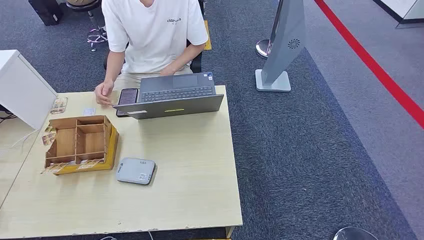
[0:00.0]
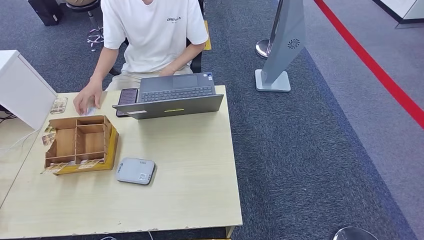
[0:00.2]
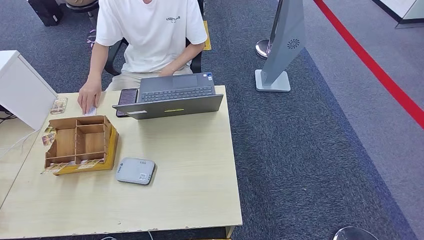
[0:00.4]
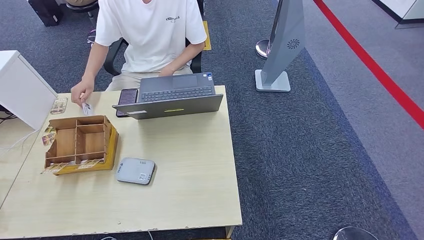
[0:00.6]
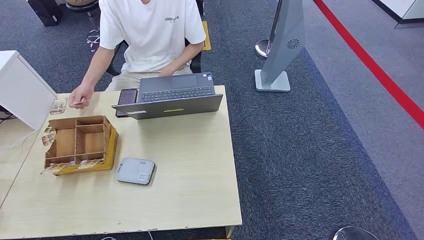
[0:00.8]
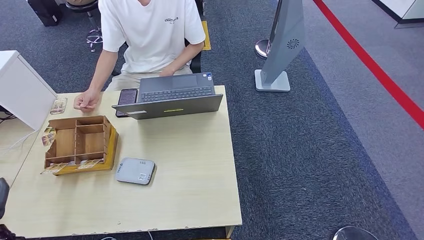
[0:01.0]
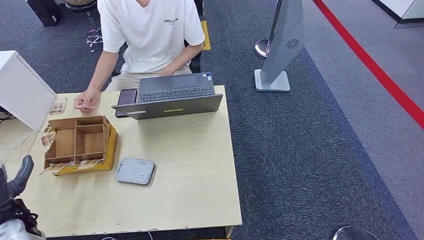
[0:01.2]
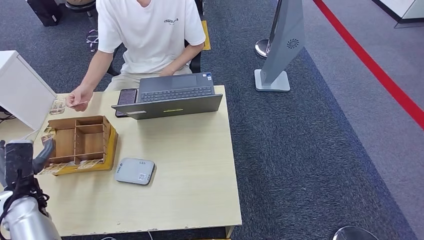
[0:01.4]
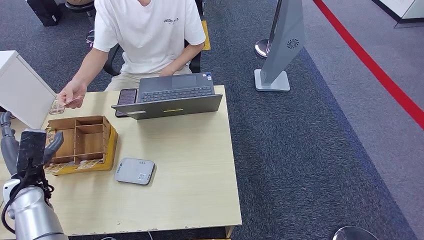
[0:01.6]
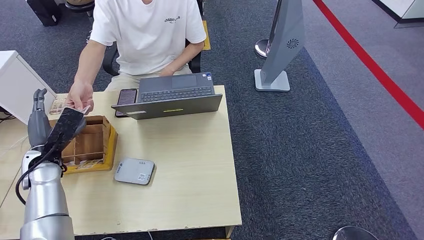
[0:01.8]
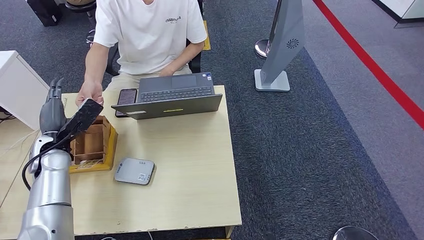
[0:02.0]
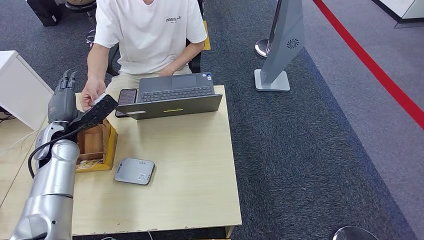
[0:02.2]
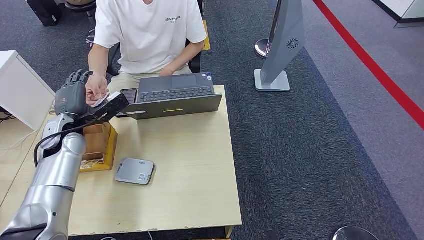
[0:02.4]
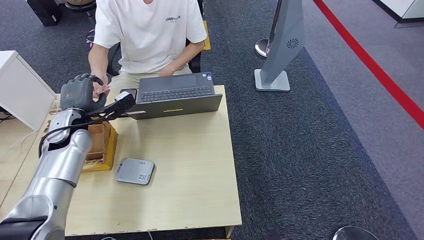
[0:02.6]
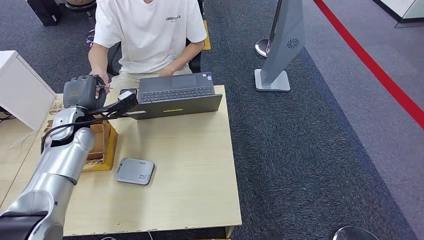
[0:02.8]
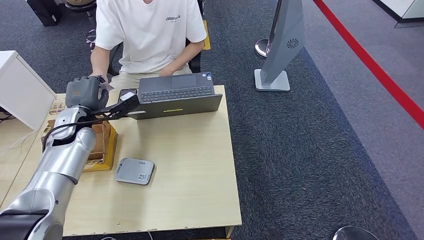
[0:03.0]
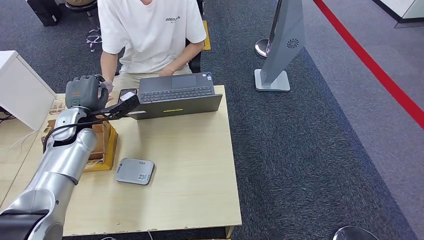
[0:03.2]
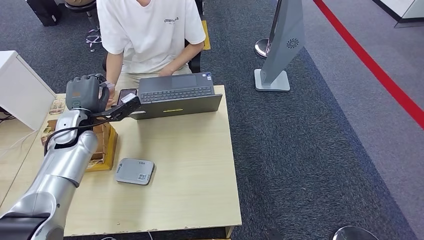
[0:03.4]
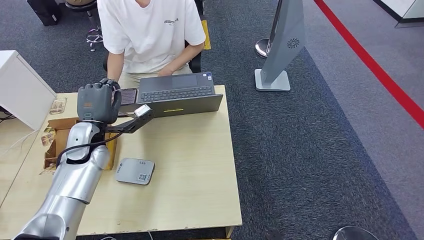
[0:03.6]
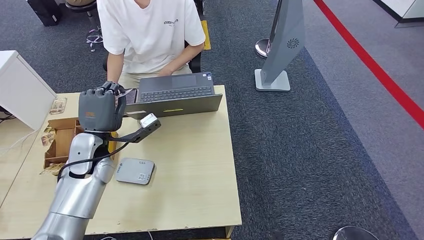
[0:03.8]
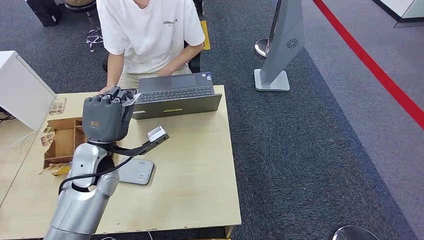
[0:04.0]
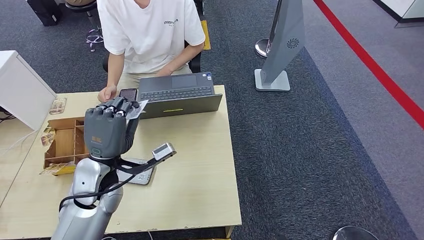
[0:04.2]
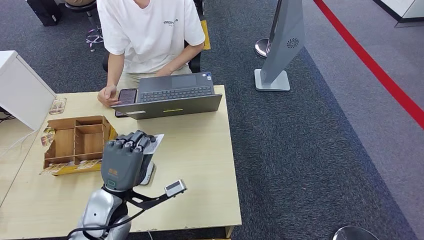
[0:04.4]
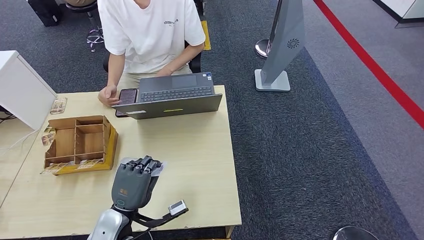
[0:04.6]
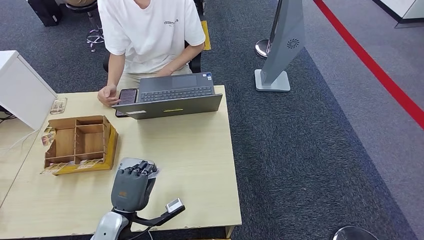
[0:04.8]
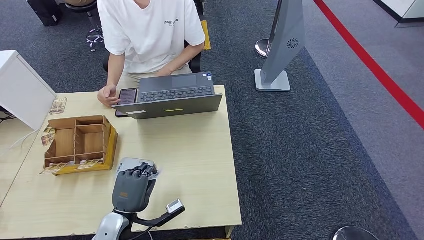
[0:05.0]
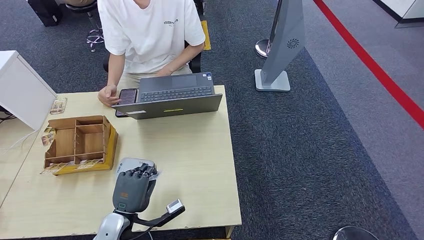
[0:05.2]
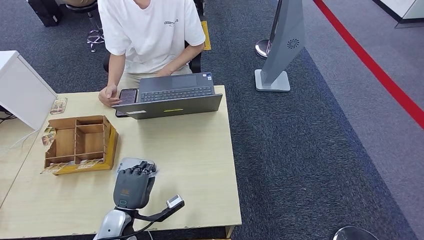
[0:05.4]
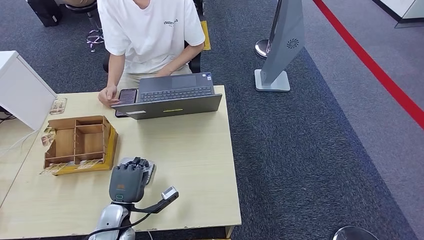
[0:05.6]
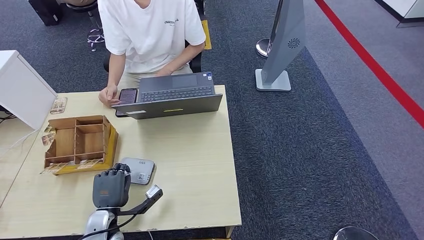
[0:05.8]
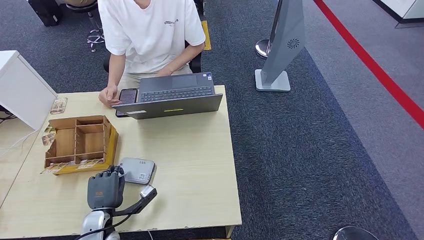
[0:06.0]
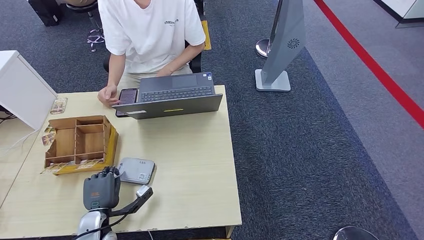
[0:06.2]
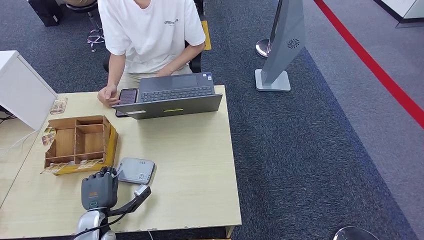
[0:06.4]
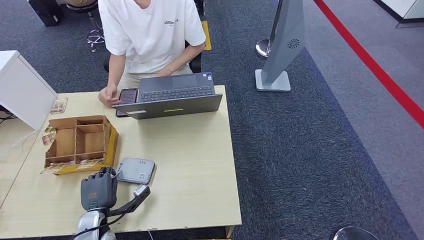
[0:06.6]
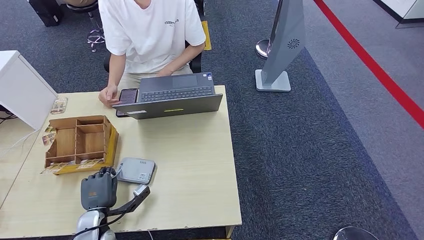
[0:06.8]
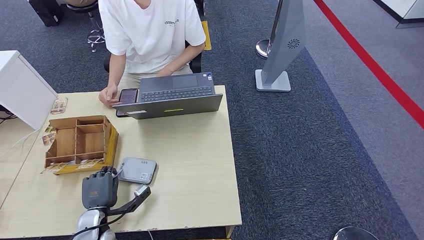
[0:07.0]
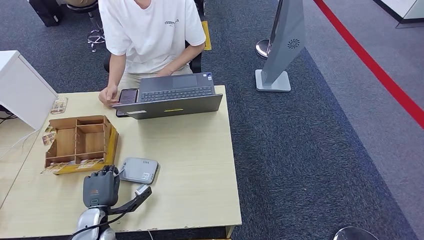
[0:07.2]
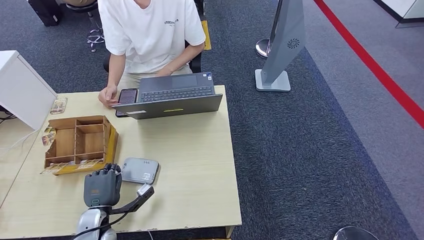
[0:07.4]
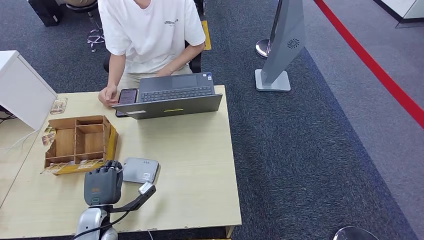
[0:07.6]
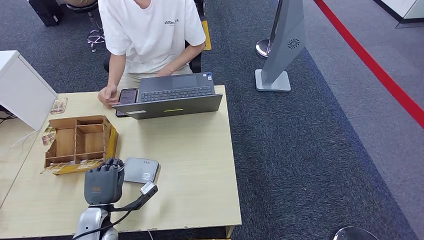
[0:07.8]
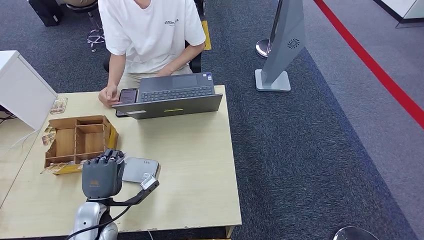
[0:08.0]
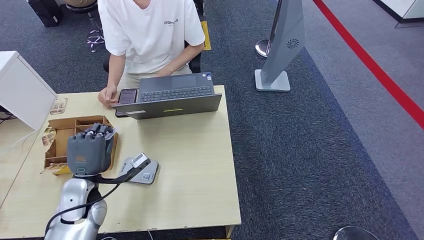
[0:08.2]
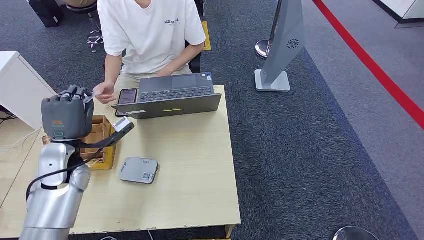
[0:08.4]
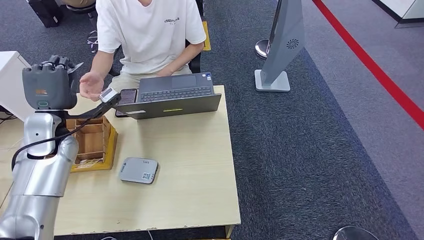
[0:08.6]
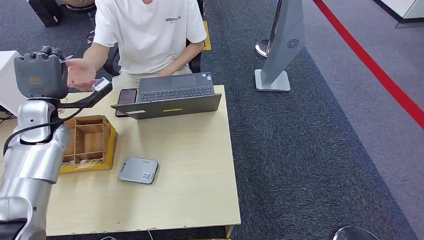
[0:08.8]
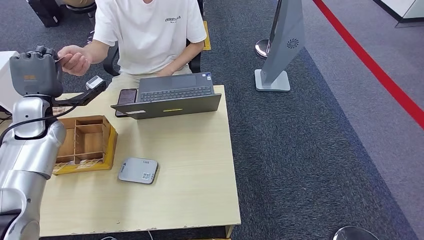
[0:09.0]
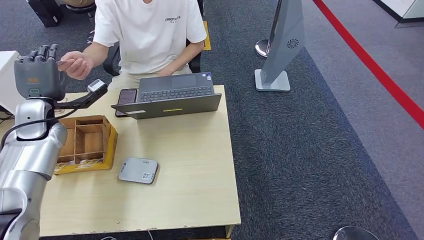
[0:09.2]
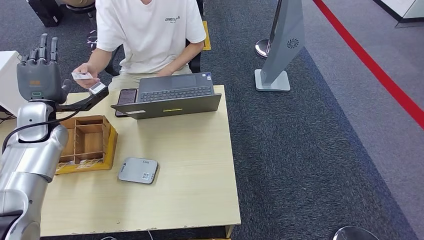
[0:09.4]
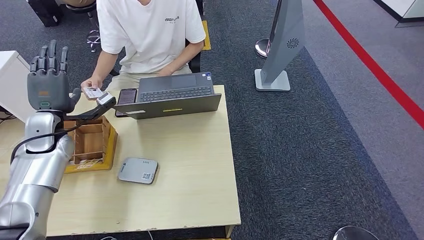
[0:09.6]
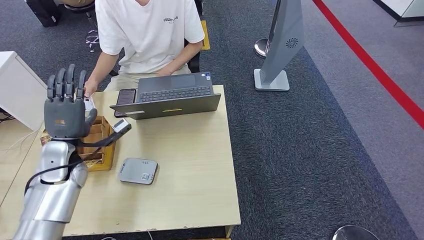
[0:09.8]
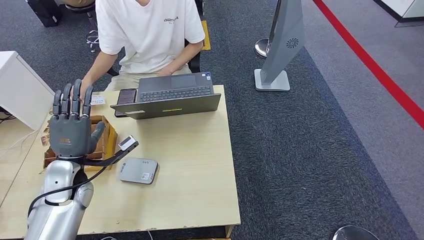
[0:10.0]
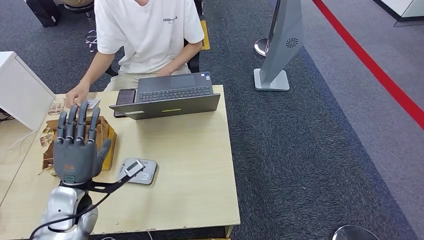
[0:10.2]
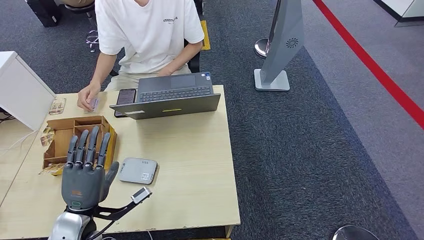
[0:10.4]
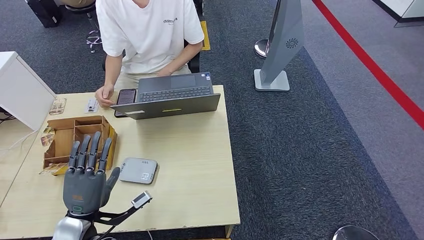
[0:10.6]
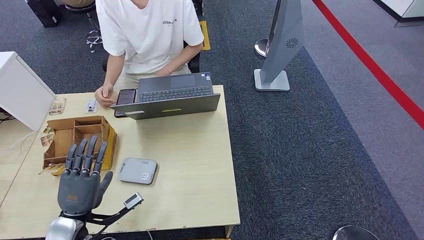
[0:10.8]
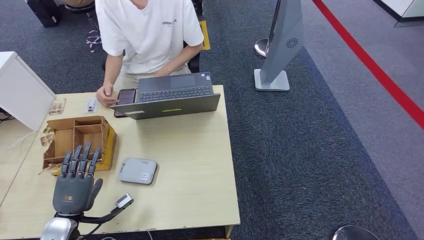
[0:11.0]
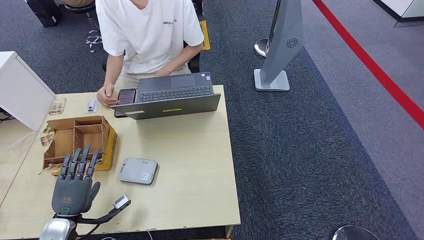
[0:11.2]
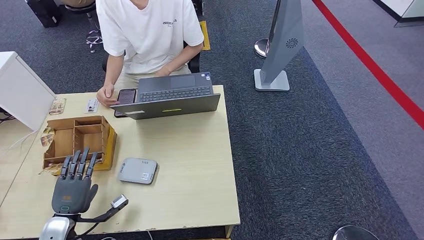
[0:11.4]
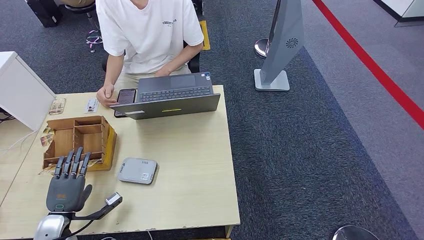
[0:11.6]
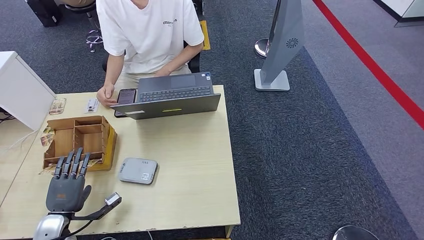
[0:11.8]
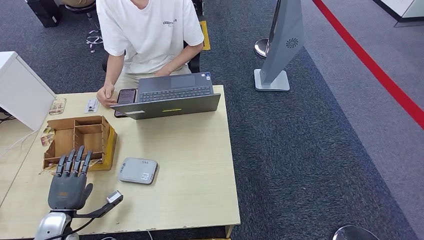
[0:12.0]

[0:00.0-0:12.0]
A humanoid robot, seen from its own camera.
Step, 0:00.0 to 0:03.6: Take the ID card from the person's hand.
Step, 0:03.8 to 0:05.6: Place the ID card on the card reader.
Step, 0:06.0 to 0:09.6: Hand the ID card to the person.
0:01.6 to 0:03.0: The left hand is displaced forward, to the right and upward by approximately 15 cm.
0:03.0 to 0:04.4: The left hand travels backward and to the right by approximately 20 cm.
0:04.4 to 0:06.0: The left hand shifts some 15 cm downward and to the left.
0:06.0 to 0:07.6: The hands stay close to where they were, moving slightly.
0:07.6 to 0:09.0: The left hand travels upward, forward and to the left by about 30 cm.
0:09.0 to 0:10.4: The left hand goes roughly 25 cm backward, downward and to the right.
0:10.4 to 0:12.0: The left hand travels to the left and downward by about 15 cm.

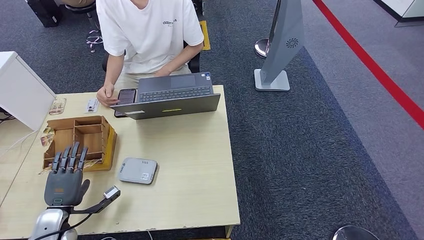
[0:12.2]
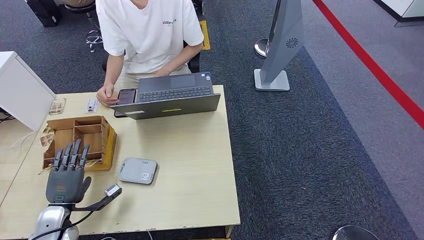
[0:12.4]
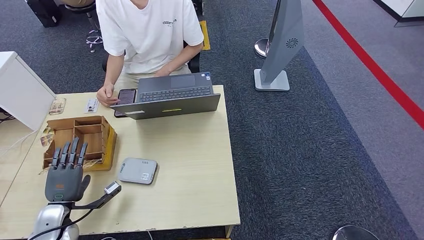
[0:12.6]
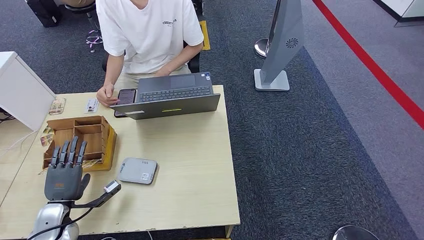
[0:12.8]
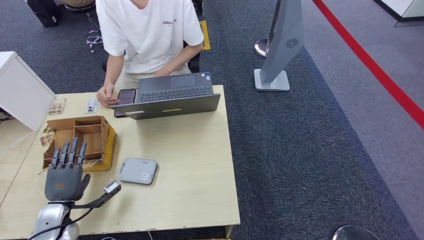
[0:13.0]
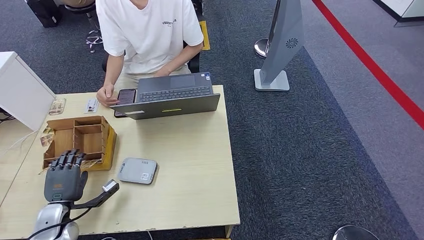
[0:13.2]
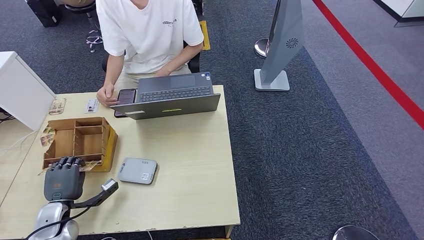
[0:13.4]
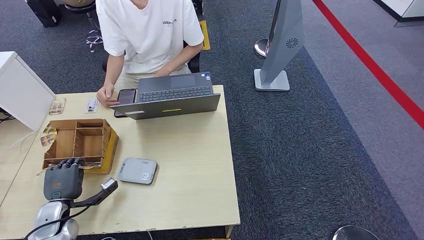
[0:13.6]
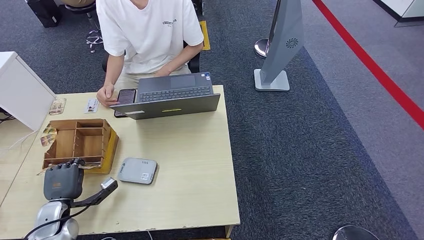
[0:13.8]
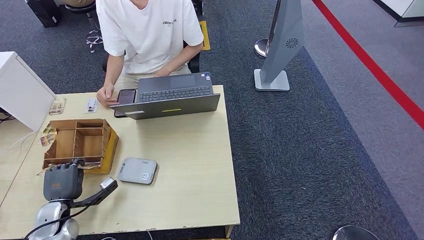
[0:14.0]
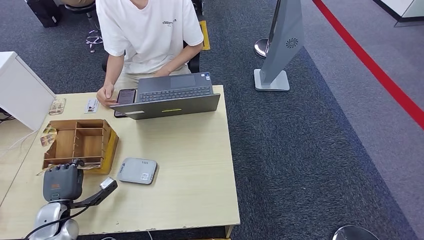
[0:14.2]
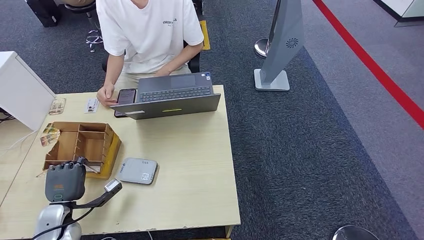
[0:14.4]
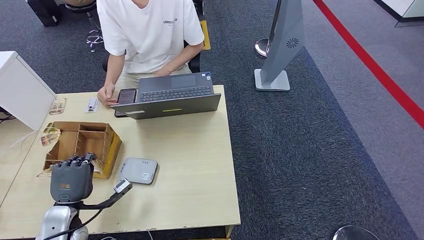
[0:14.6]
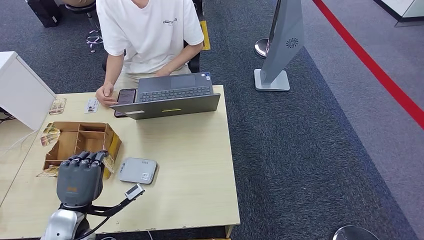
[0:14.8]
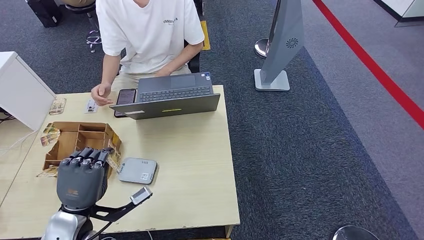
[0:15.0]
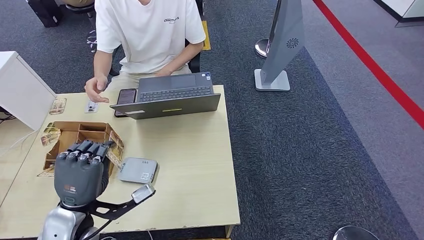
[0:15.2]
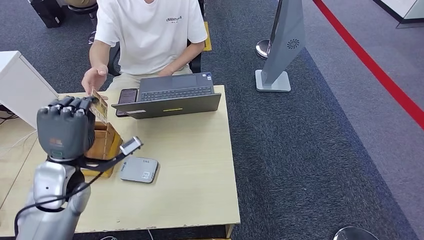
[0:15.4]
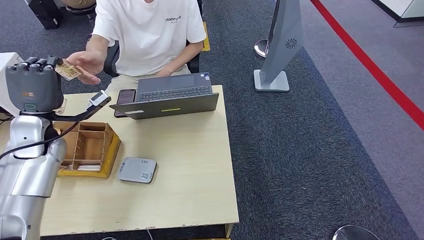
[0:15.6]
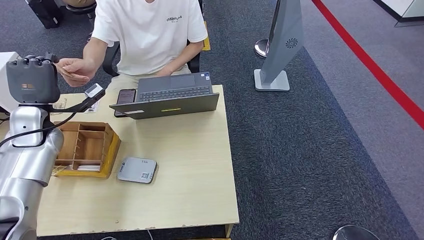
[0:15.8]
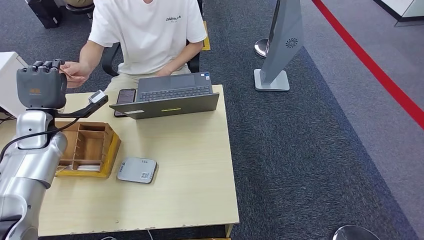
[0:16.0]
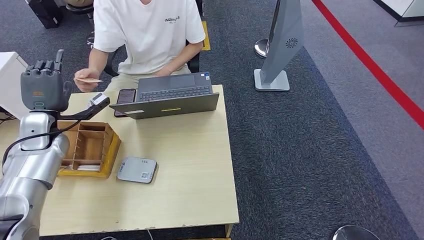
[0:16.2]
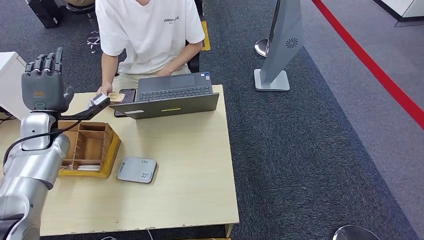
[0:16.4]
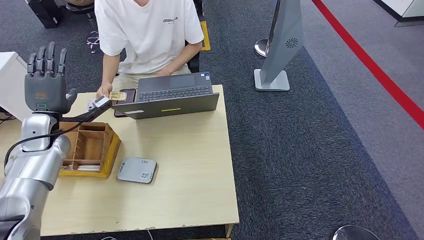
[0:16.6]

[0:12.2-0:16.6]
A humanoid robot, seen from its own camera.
Step, 0:14.0 to 0:16.6: Hand the room key to the person.
0:12.2 to 0:13.6: The hands move only a little.
0:13.6 to 0:15.2: The left hand goes approximately 20 cm upward and to the right.
0:15.2 to 0:16.6: The left hand goes some 25 cm forward and to the left.
